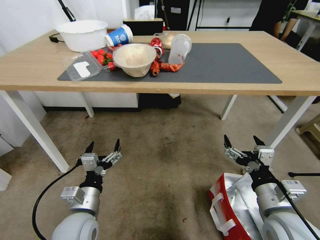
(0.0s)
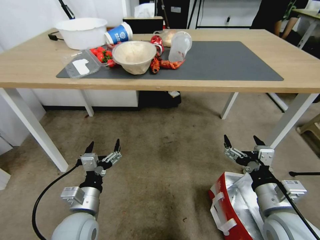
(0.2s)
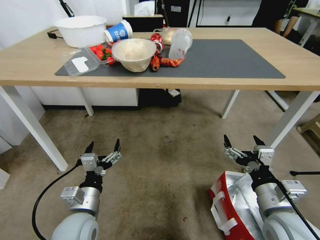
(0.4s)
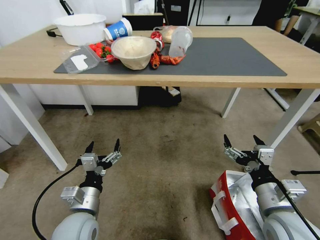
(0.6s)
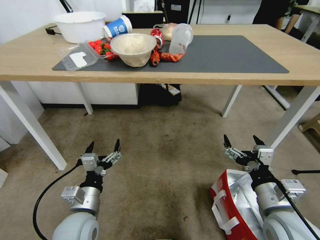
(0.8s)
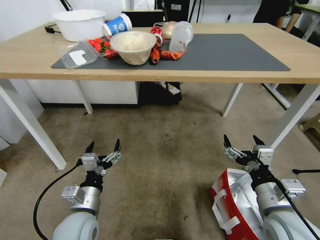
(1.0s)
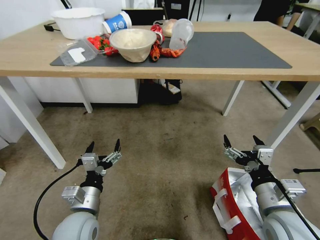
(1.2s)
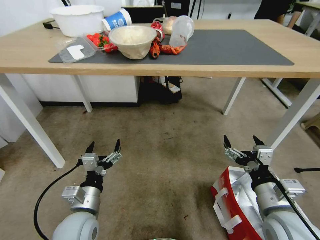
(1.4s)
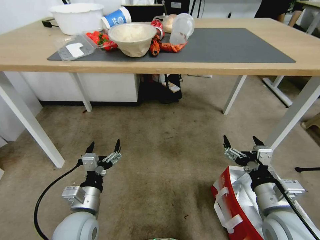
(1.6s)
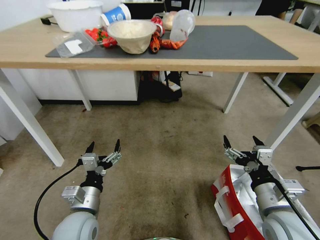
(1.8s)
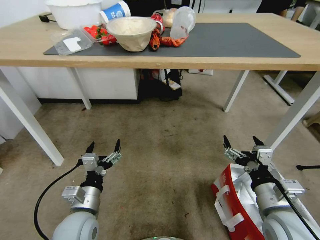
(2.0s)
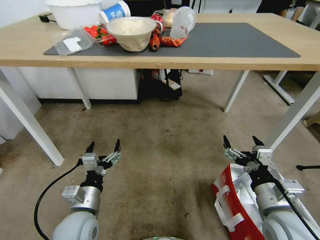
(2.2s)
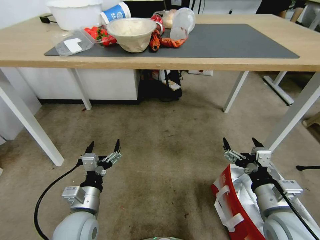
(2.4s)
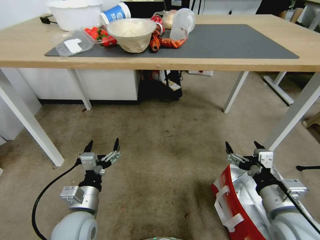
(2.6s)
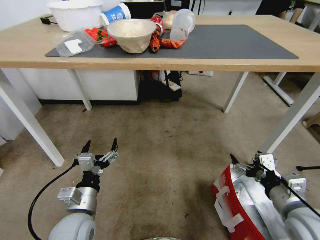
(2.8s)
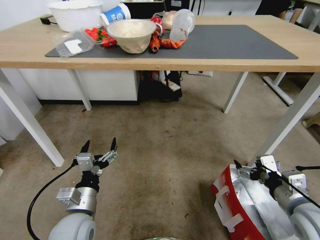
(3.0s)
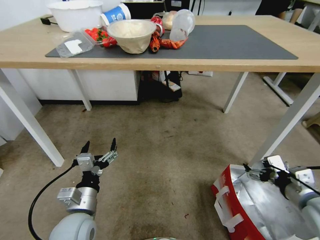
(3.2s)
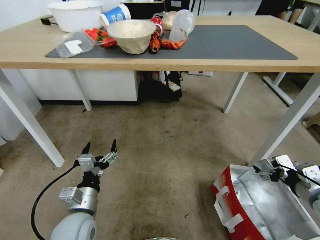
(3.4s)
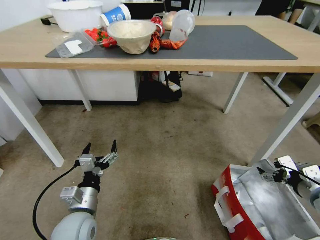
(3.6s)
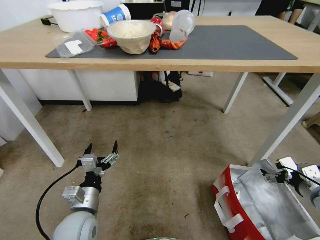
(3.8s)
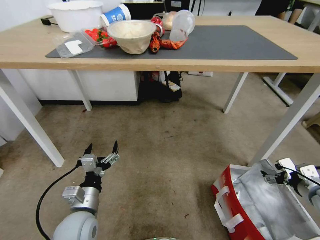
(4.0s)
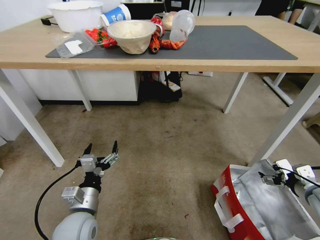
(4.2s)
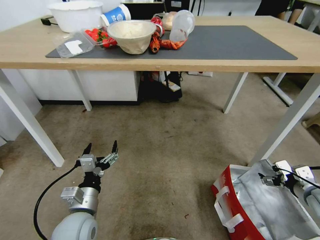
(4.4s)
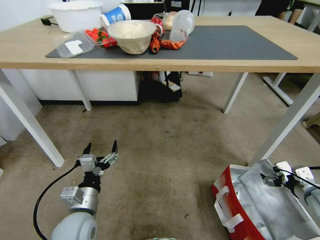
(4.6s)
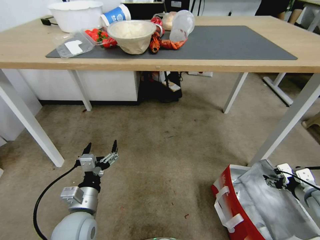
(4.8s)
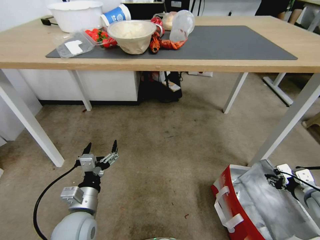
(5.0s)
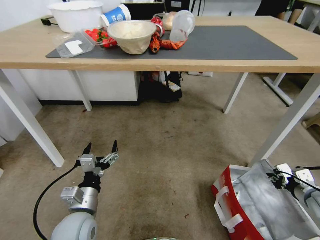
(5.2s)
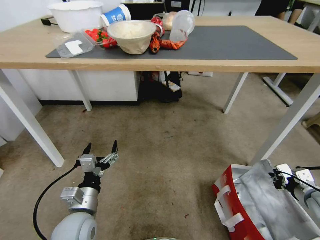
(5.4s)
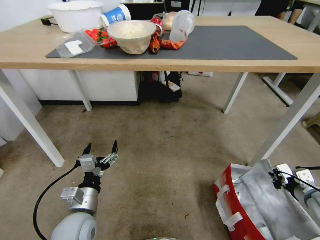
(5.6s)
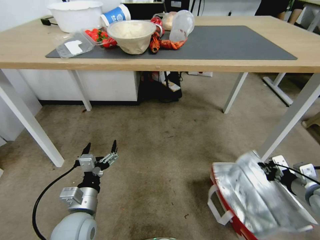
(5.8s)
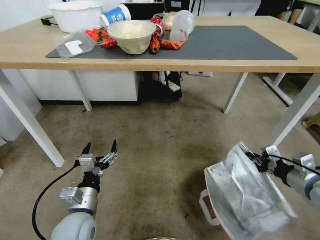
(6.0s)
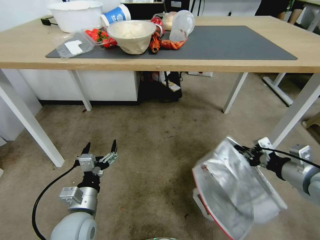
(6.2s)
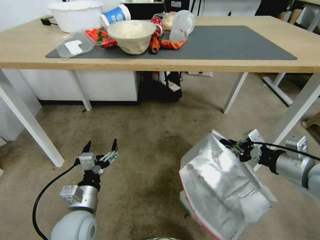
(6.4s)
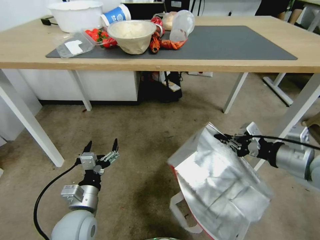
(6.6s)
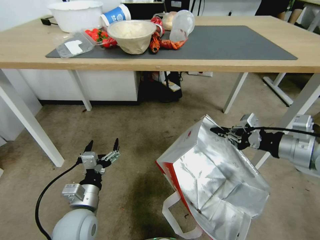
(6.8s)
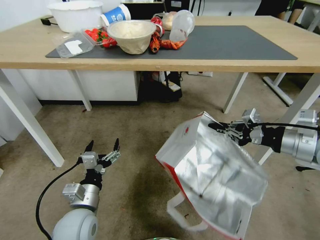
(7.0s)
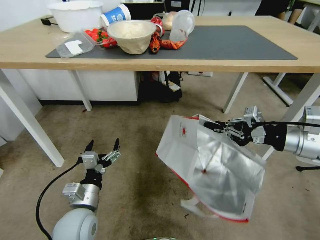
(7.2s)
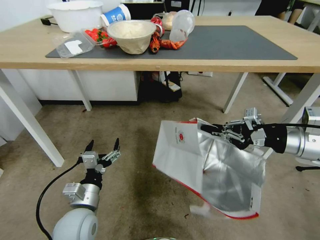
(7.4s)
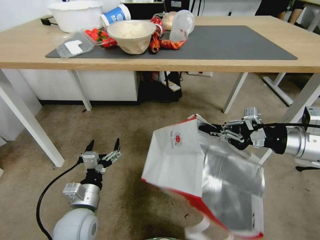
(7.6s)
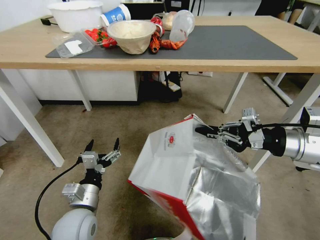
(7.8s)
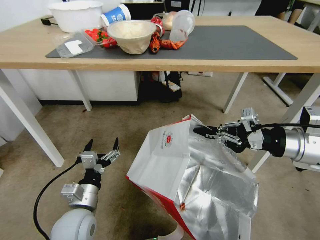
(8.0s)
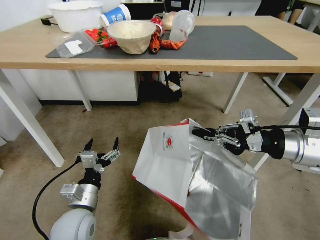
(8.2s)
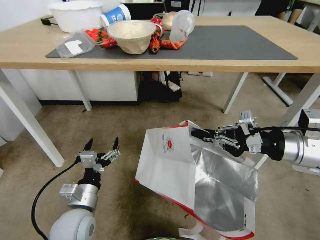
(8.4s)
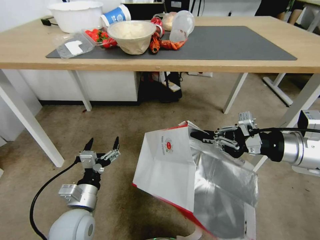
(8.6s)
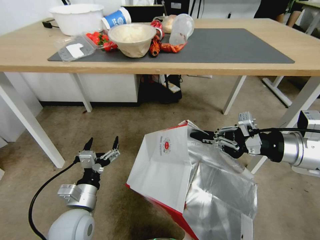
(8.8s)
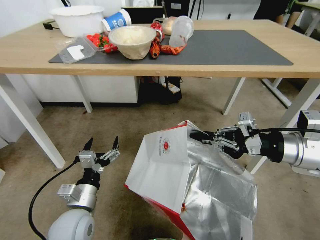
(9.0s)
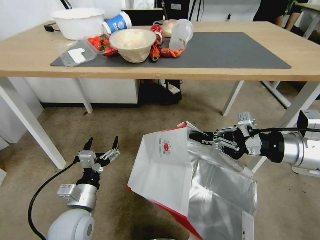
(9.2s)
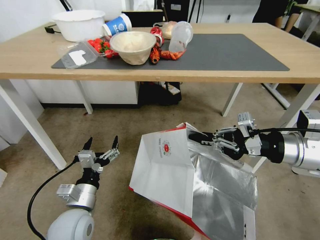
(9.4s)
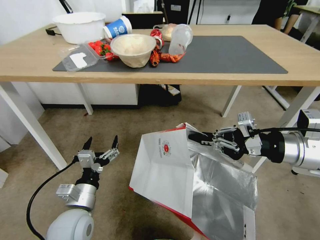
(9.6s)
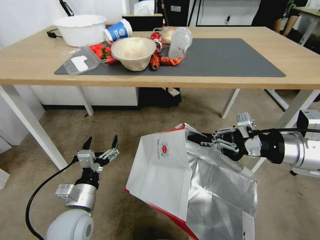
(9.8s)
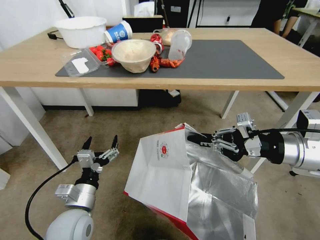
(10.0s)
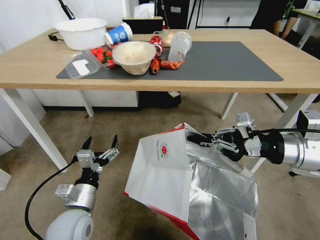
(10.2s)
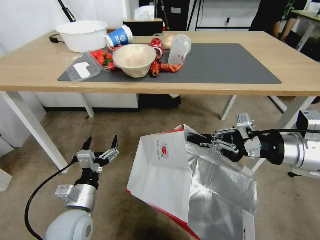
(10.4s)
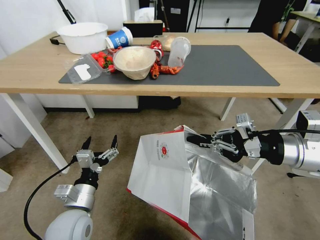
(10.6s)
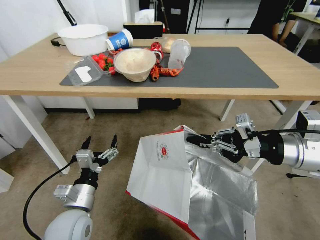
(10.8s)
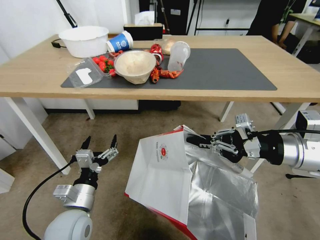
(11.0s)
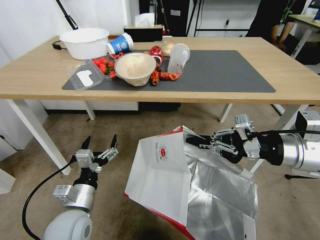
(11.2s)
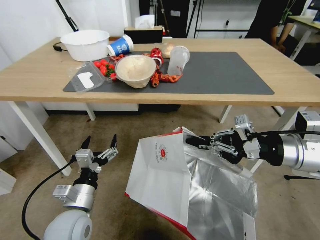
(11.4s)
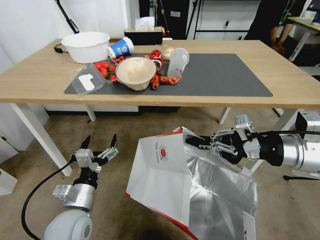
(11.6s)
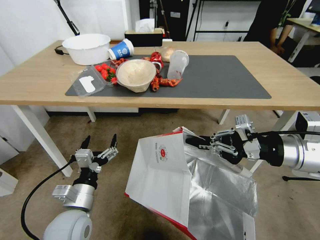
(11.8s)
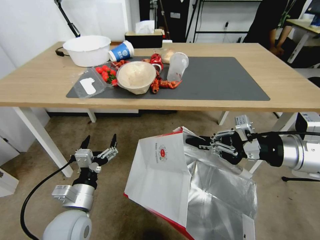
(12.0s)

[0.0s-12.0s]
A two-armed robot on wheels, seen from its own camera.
Task of the whole recording: Pick up the food delivery bag from the floor and place it on the table.
1.6s to 3.0s: The right gripper moves to the right, some 5 cm.
3.0s to 4.4s: The right gripper heads to the right, forward and downward, covering roughly 15 cm.
4.4s to 6.0s: The right gripper heads upward, covering some 5 cm, and closes.
6.0s to 7.6s: The right gripper moves upward, roughly 15 cm.

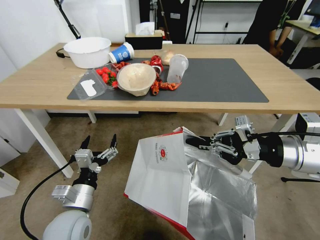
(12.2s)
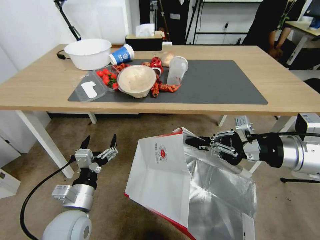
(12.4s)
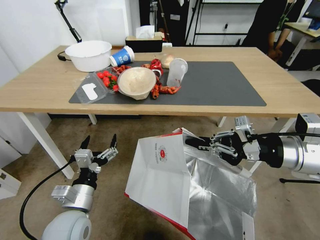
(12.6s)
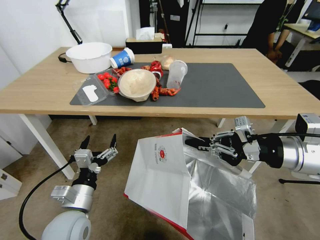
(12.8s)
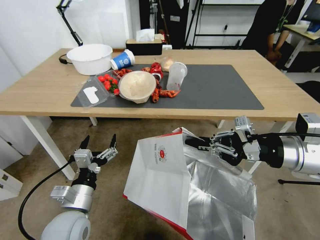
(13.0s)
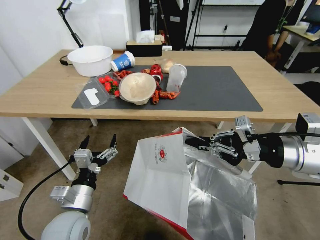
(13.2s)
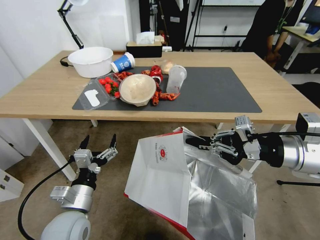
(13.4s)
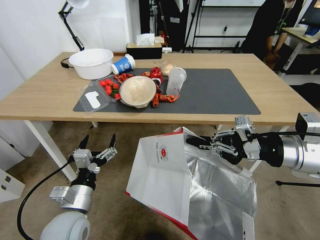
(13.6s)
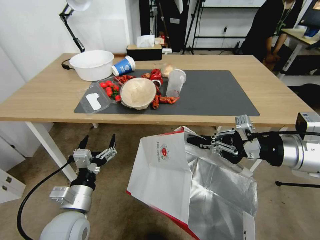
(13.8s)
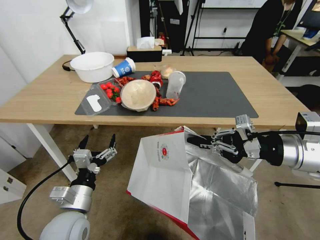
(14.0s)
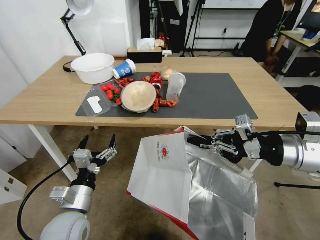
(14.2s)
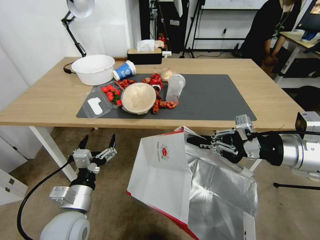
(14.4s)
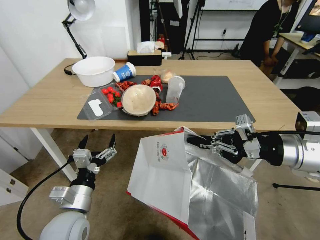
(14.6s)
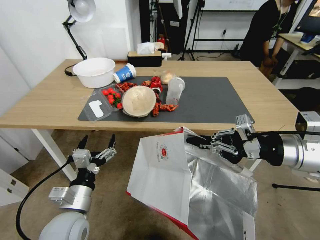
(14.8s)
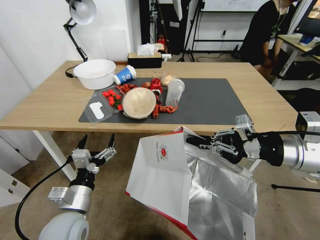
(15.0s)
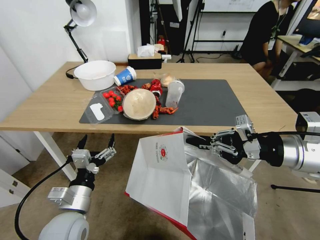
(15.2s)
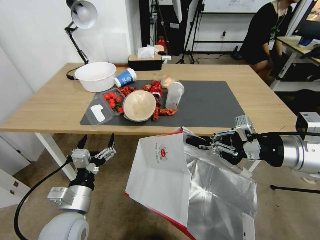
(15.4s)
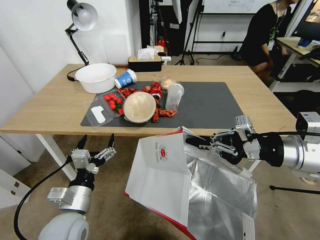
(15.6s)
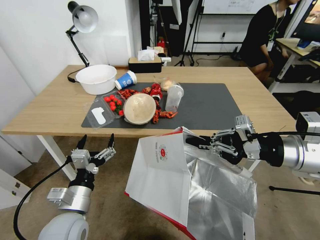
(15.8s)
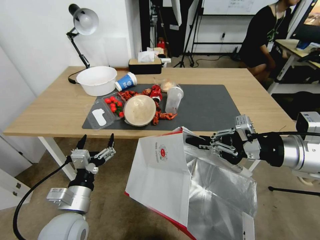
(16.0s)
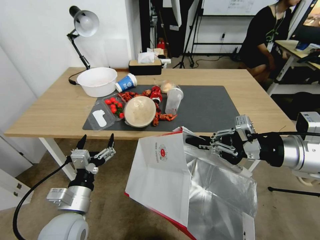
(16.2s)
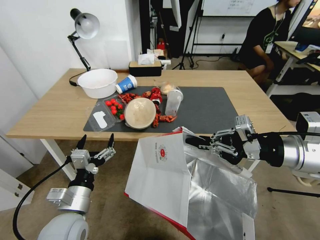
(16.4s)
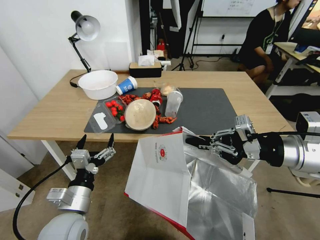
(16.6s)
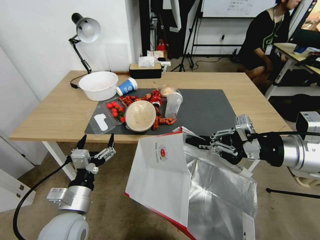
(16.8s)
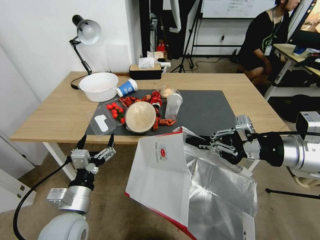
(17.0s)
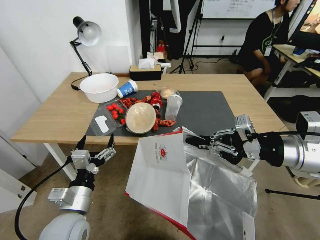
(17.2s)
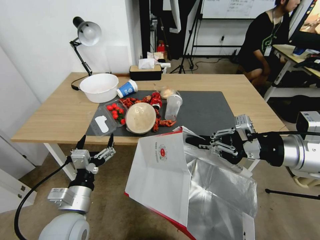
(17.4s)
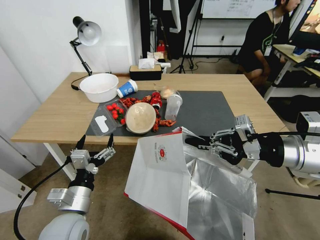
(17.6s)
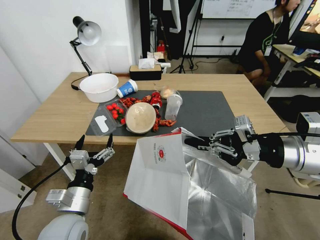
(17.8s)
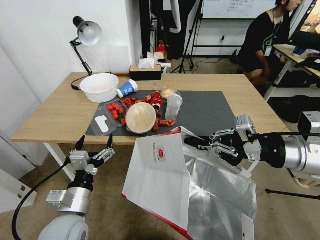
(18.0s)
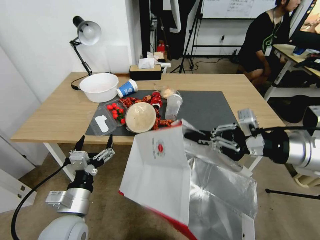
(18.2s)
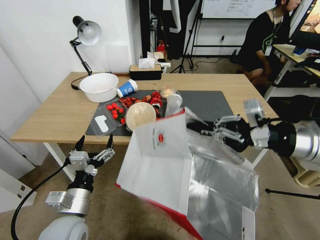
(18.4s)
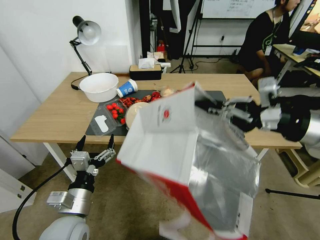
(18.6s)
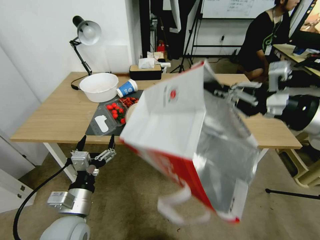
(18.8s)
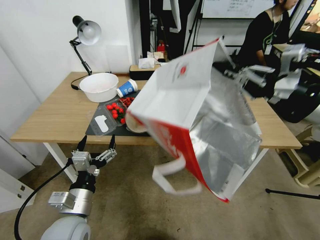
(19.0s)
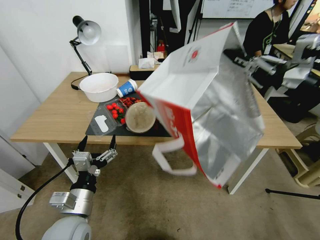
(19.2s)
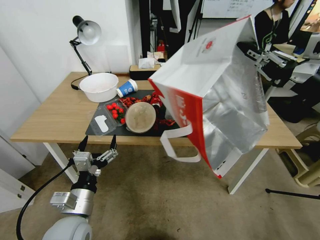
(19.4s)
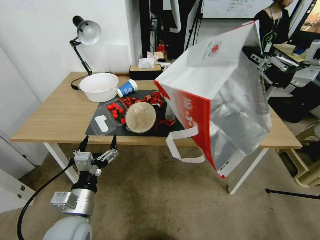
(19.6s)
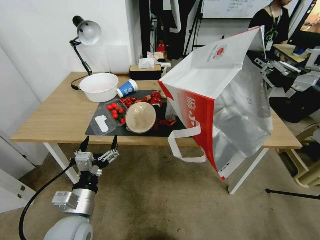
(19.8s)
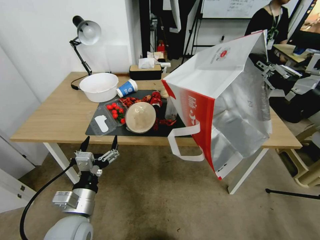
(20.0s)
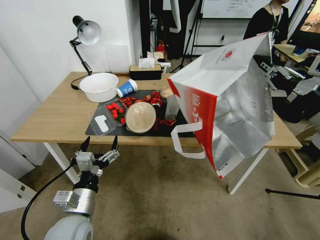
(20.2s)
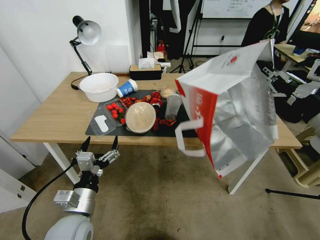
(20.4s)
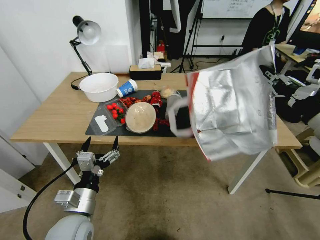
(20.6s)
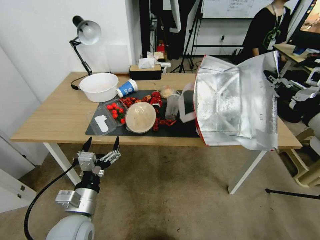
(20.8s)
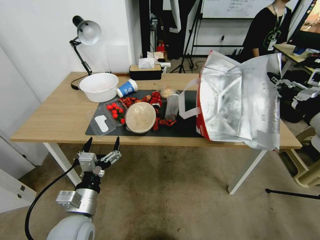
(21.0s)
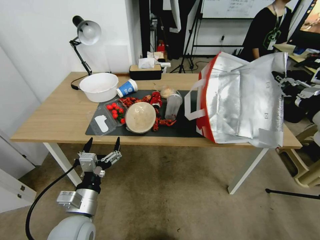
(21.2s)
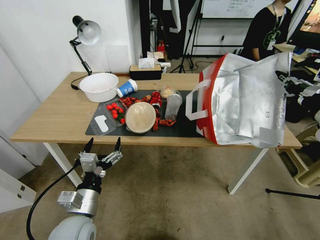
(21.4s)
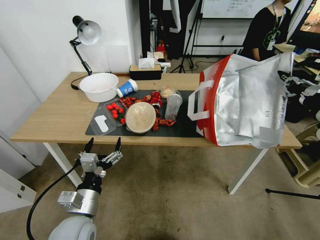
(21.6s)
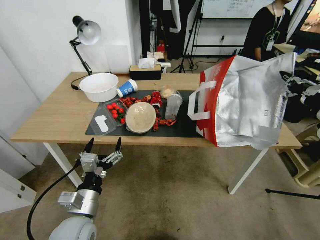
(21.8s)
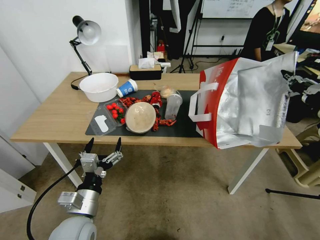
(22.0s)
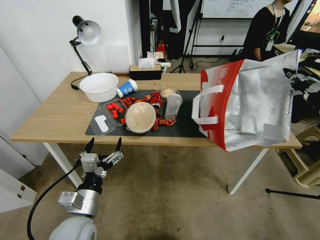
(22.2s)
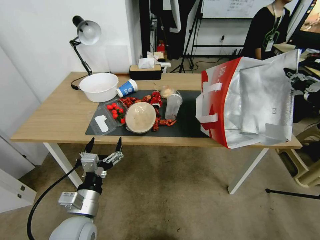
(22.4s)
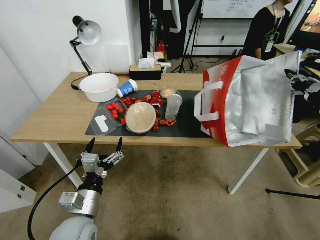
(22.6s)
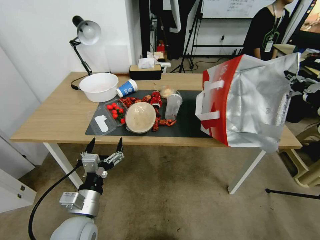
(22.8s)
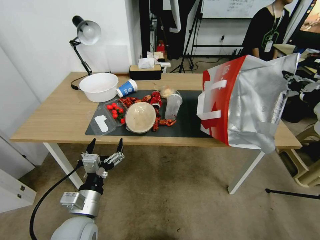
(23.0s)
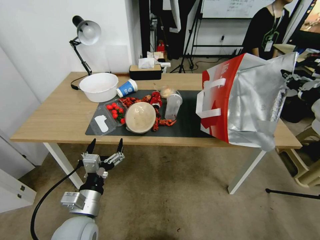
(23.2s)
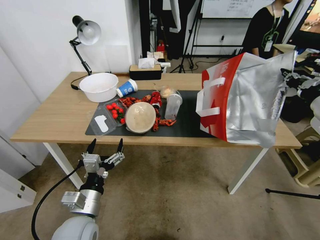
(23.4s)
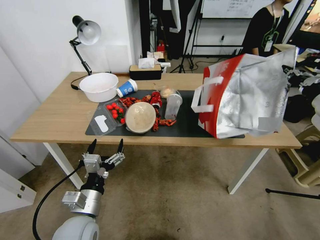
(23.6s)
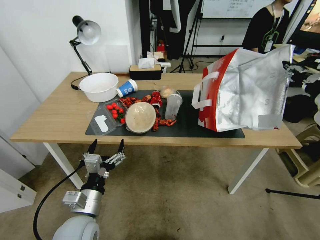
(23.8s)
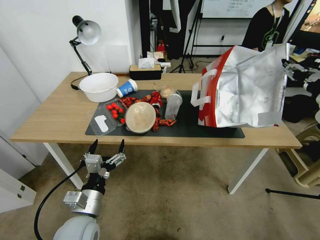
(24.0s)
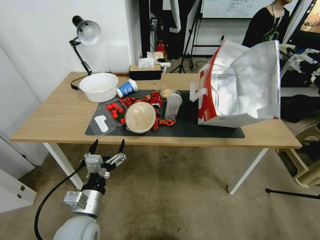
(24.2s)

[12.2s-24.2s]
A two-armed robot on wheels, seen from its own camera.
Task of the whole recording: Pick up the food delivery bag from the floor and place it on the table.
18.2s to 19.8s: The right gripper moves about 5 cm.
19.8s to 21.2s: The right gripper goes about 5 cm downward.
21.2s to 22.6s: The grippers stay close to where they were, moving slightly.
22.6s to 24.2s: The right gripper opens.
